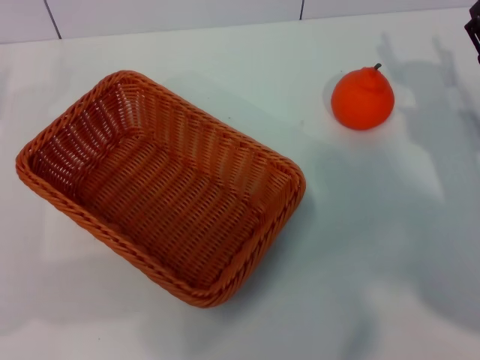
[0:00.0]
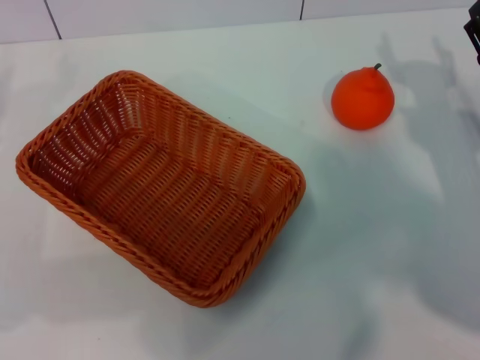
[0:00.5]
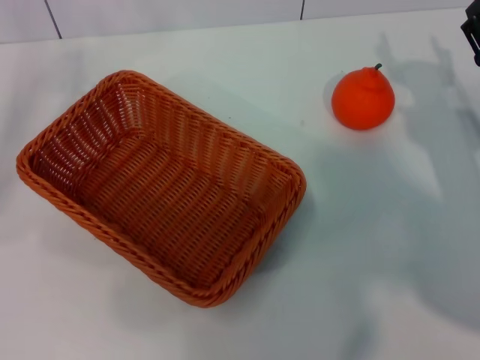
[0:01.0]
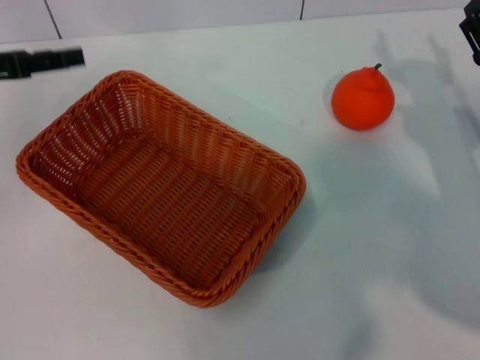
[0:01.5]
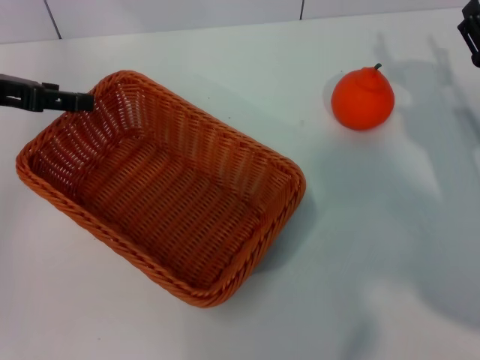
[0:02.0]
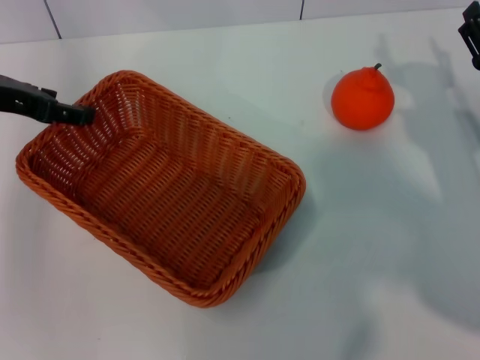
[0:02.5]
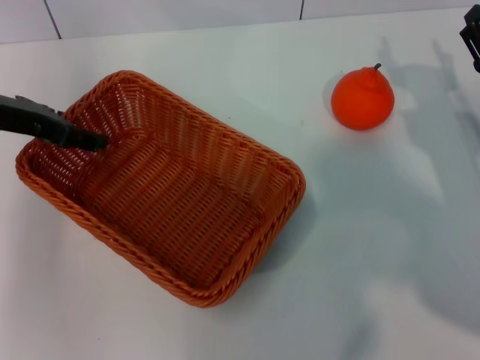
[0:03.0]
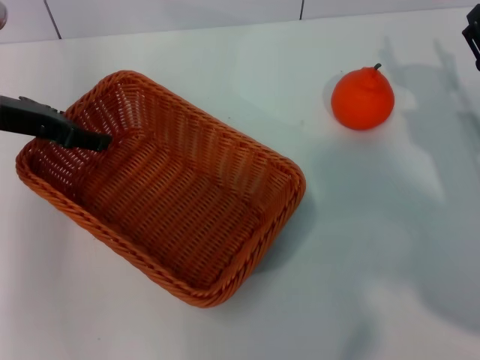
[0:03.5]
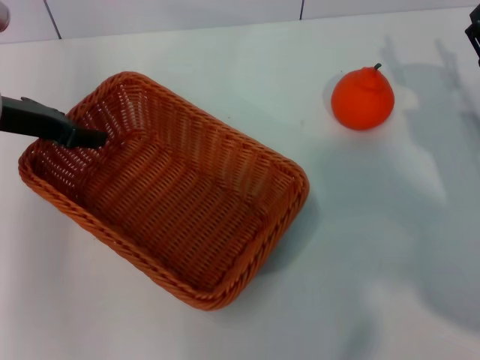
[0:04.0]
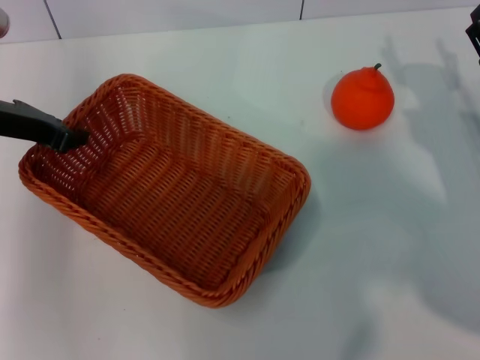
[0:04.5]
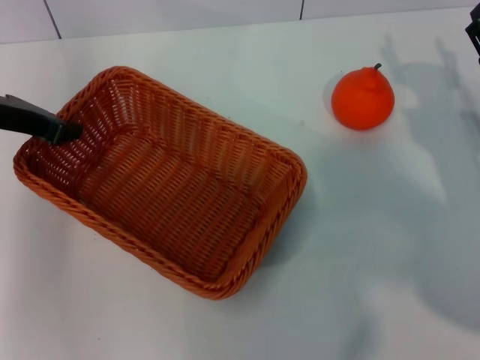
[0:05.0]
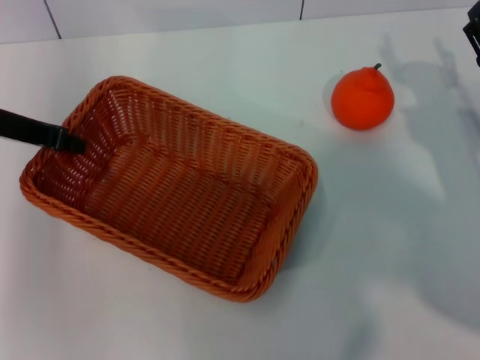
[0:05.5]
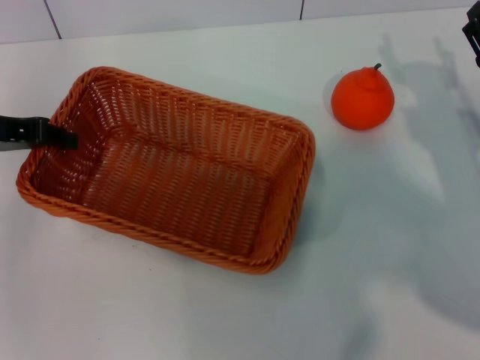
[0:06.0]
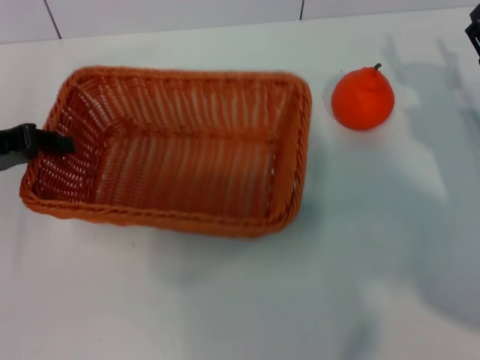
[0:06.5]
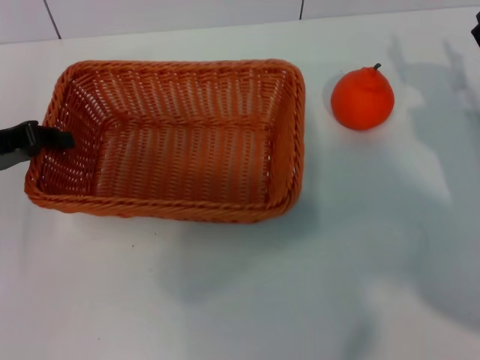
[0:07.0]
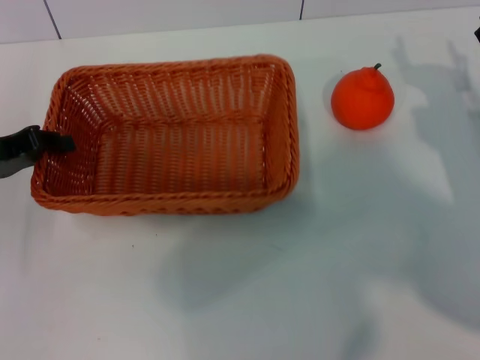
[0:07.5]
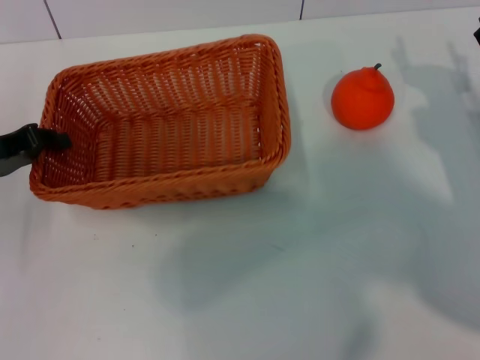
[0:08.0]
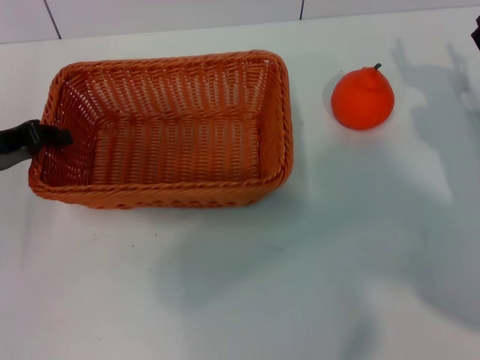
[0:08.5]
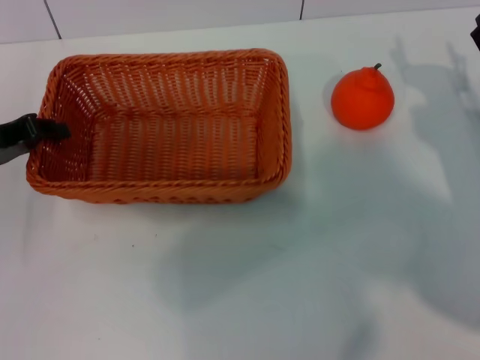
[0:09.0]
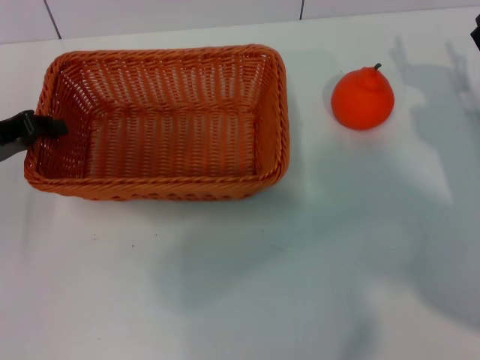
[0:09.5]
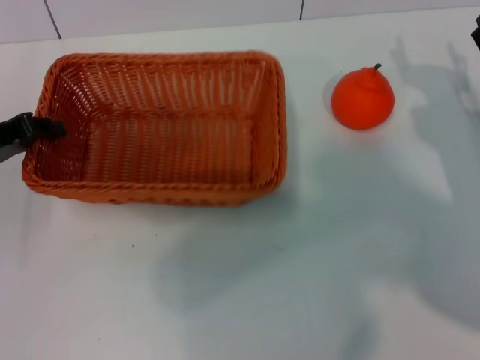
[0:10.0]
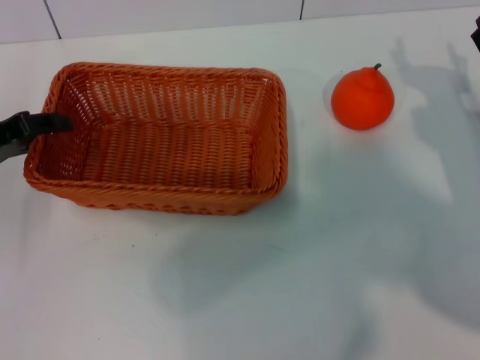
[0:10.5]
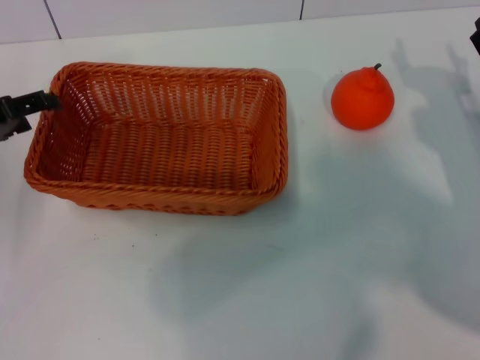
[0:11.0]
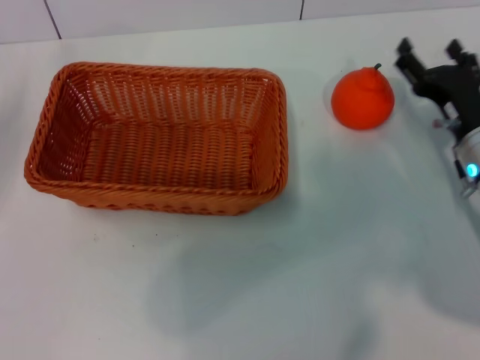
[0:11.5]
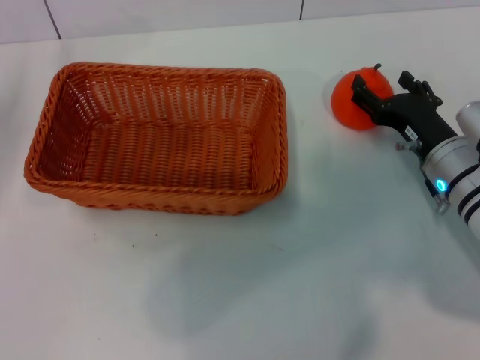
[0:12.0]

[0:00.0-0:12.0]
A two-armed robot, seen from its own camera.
Task of the whole recording: the left gripper pick up the yellow basket and place it horizontally in the middle of the table, the right gripper pick up the orange and place it into the yellow basket.
Step, 0:00.0 to 0:06.0: Pick up the light basket with the left gripper.
Step, 0:06.5 to 0:11.0: Place the light basket in the center of view with the left gripper.
0:00.0 to 0:02.0: The left gripper travels upward, forward and to the right by about 15 cm.
0:02.0 to 0:04.0: The left gripper changes place by roughly 5 cm.
0:04.0 to 0:06.0: The left gripper closes its fingers.
0:06.0 to 0:08.0: The left gripper shifts approximately 5 cm downward.
0:08.0 to 0:10.0: Both grippers stay put.
0:10.0 to 0:12.0: The right gripper goes some 5 cm to the left. The left gripper shifts by some 5 cm, and opens up.

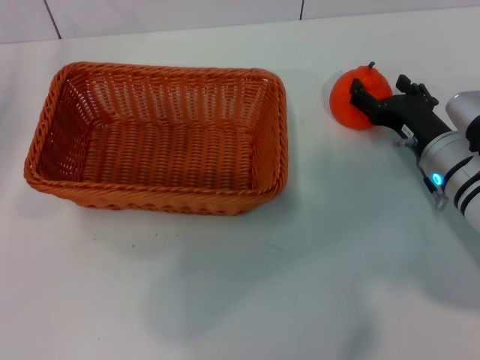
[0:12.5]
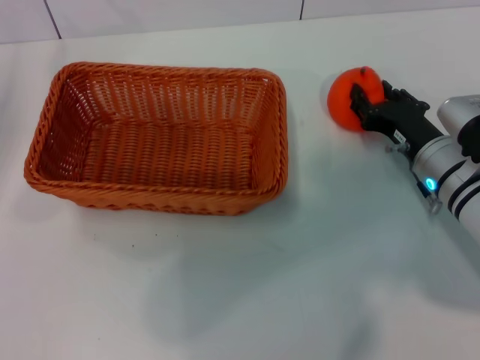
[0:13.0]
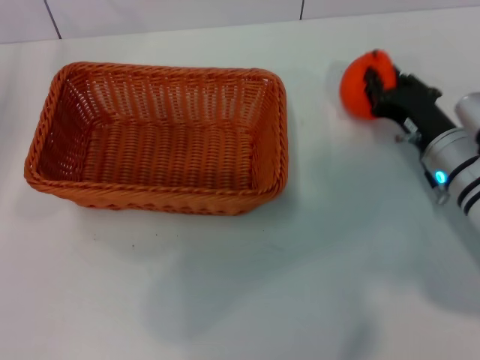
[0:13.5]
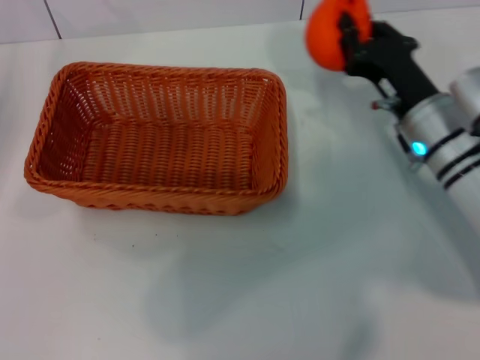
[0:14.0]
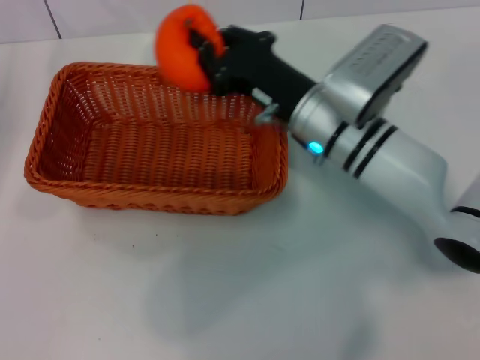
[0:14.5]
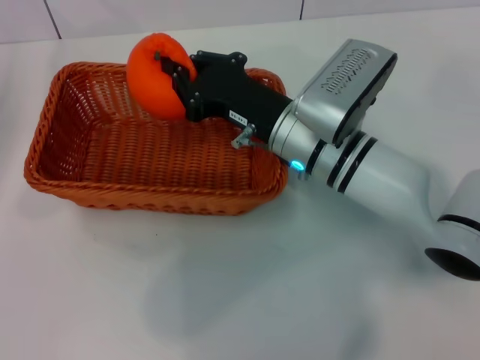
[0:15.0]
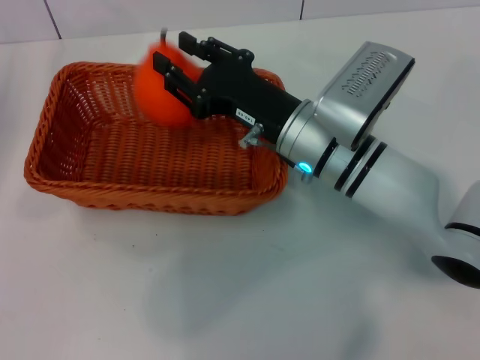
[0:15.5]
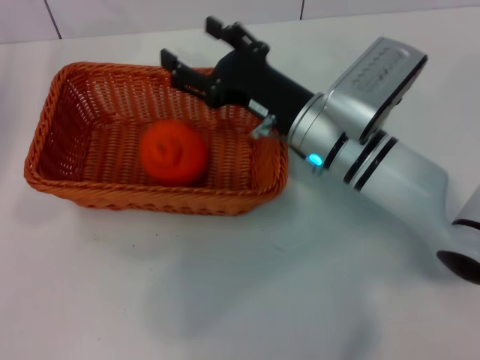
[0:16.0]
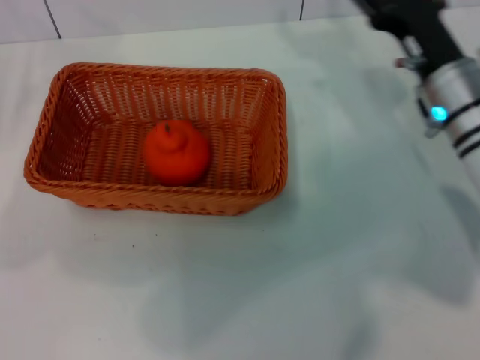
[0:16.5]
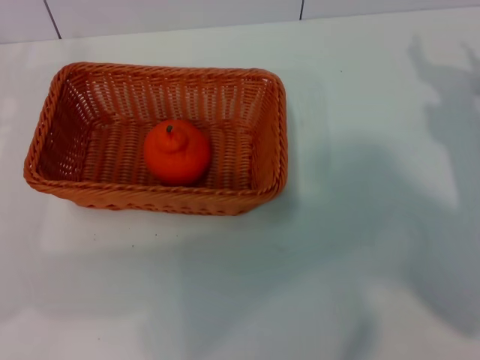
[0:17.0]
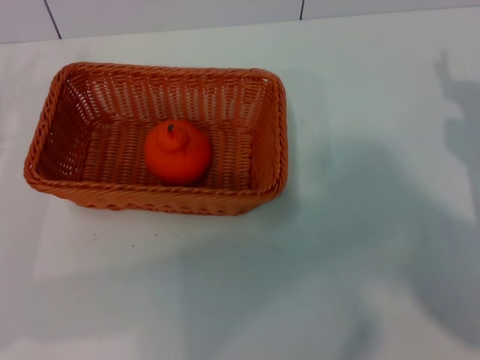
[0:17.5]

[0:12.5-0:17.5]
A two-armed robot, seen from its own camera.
Task of the whole recording: the left gripper pick up the yellow basket and place it horizontally in the middle of the table, the right gripper pick up the orange and place it into the yellow basket.
Step, 0:14.0 to 0:15.5: Place the orange into the light basket with the right gripper.
0:12.5 to 0:15.0: The right gripper heads to the left and upward, covering approximately 15 cm, and closes.
0:15.0 to 0:17.5: The left gripper heads downward and backward, covering approximately 10 cm, while the right gripper moves to the right, about 25 cm, and opens its fingers.
